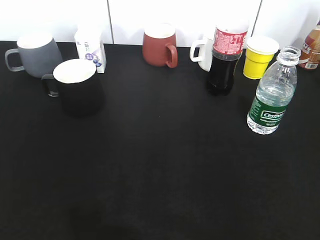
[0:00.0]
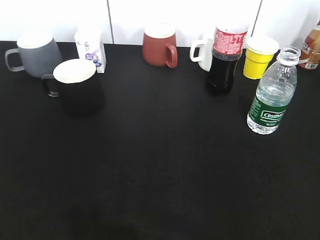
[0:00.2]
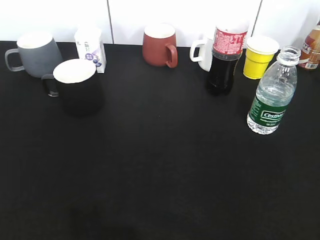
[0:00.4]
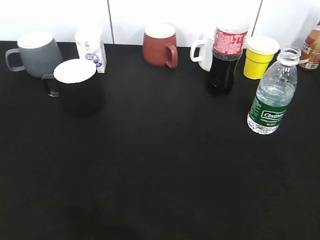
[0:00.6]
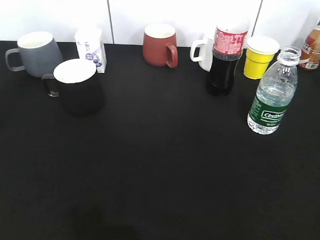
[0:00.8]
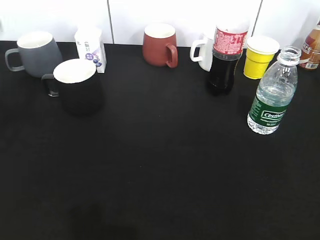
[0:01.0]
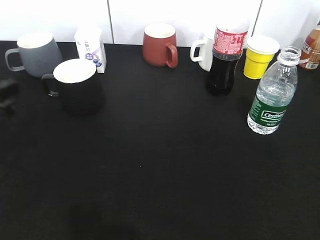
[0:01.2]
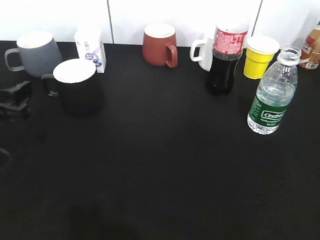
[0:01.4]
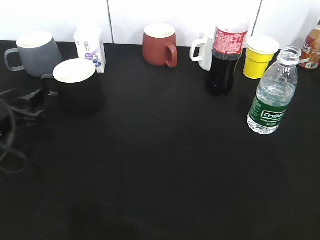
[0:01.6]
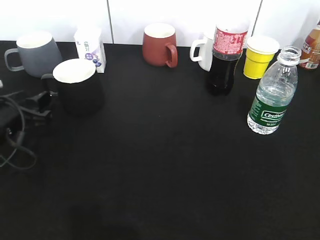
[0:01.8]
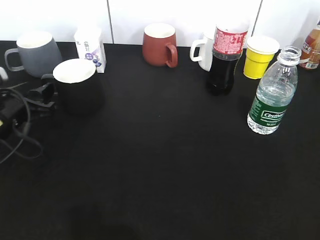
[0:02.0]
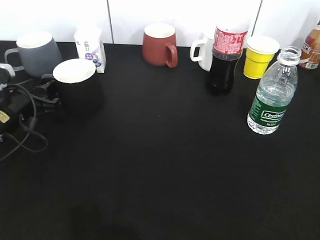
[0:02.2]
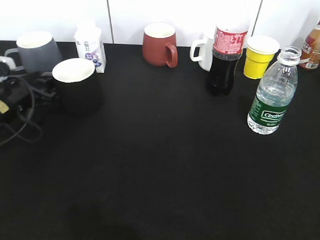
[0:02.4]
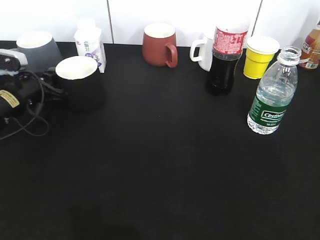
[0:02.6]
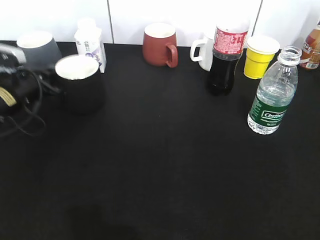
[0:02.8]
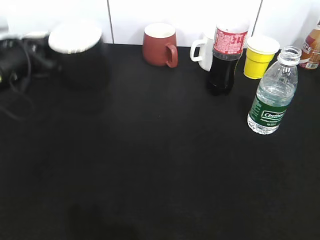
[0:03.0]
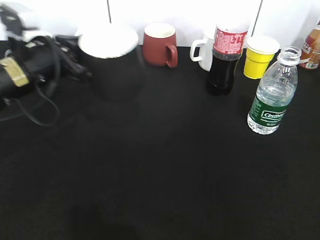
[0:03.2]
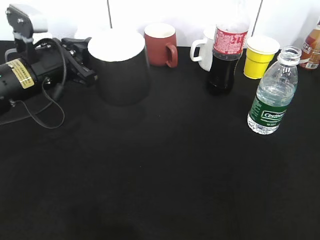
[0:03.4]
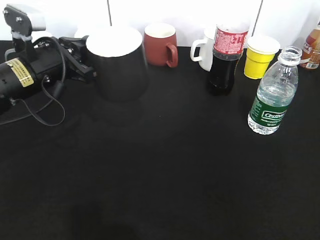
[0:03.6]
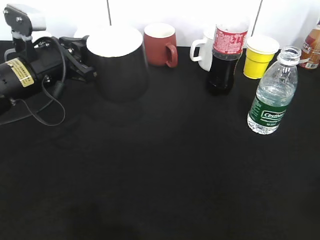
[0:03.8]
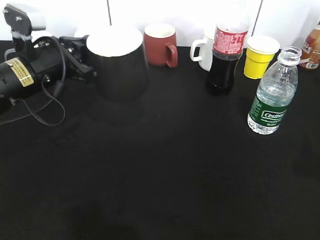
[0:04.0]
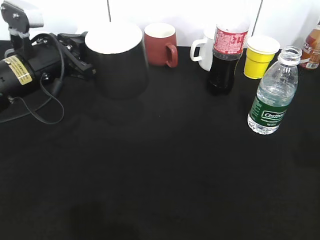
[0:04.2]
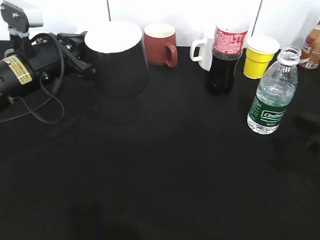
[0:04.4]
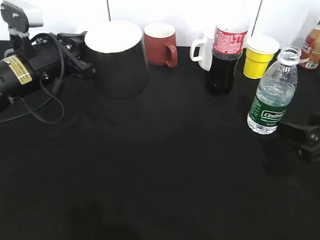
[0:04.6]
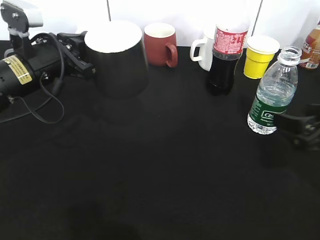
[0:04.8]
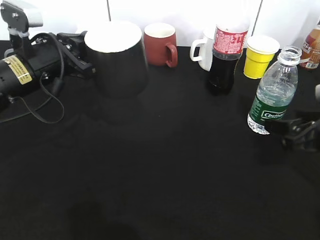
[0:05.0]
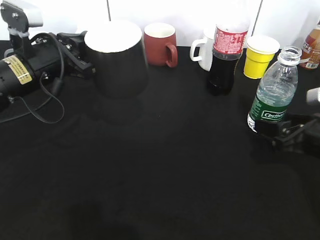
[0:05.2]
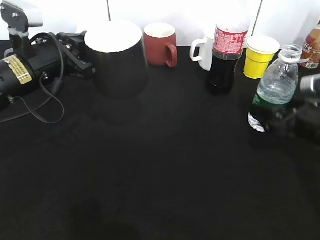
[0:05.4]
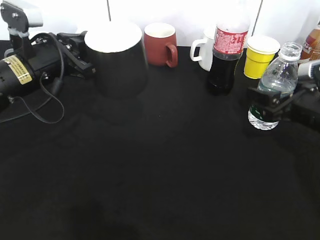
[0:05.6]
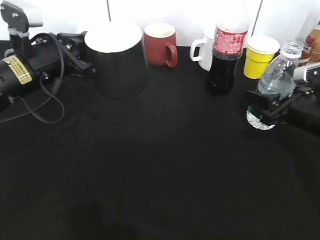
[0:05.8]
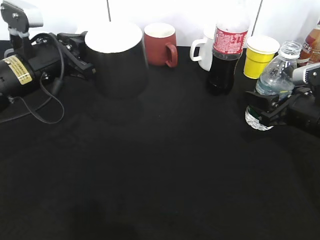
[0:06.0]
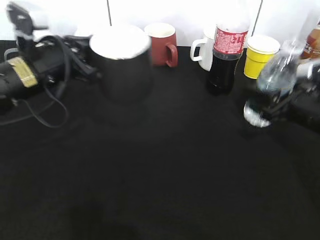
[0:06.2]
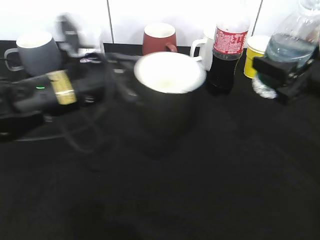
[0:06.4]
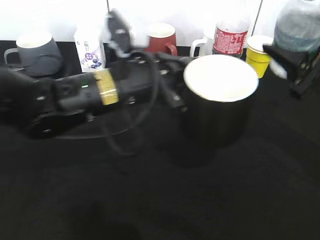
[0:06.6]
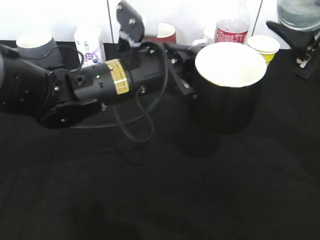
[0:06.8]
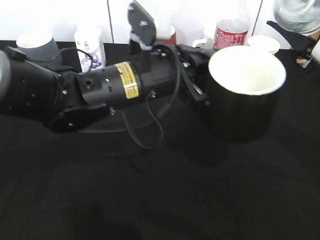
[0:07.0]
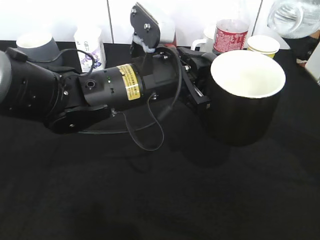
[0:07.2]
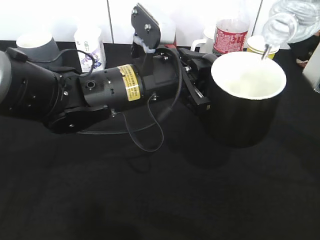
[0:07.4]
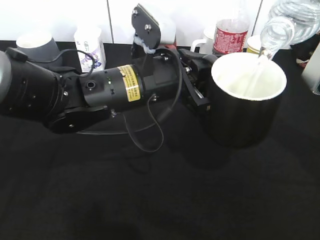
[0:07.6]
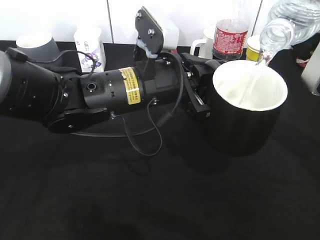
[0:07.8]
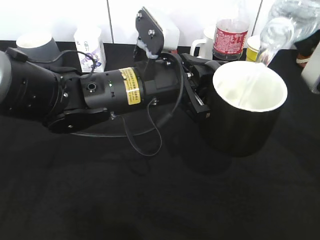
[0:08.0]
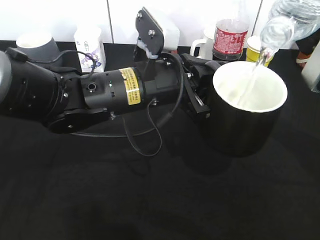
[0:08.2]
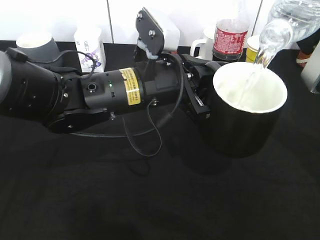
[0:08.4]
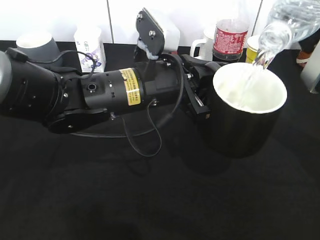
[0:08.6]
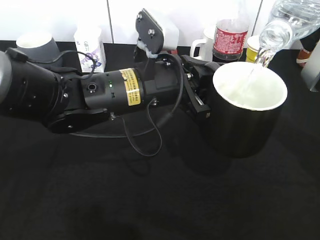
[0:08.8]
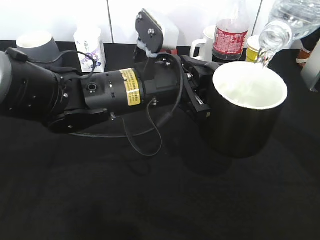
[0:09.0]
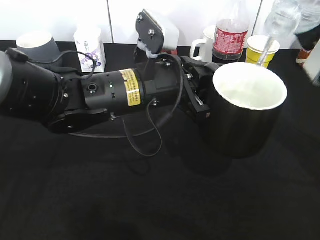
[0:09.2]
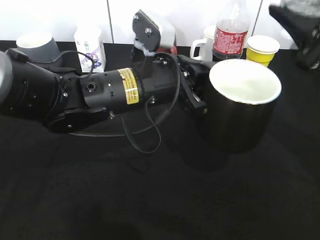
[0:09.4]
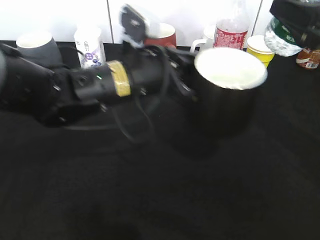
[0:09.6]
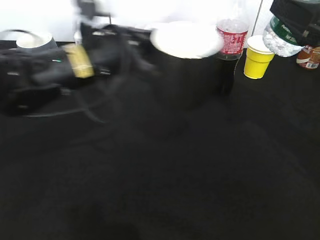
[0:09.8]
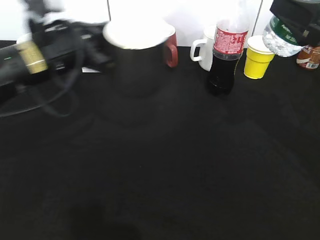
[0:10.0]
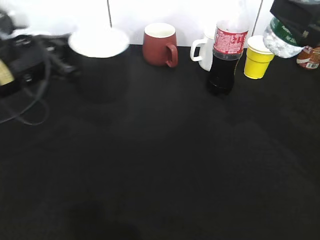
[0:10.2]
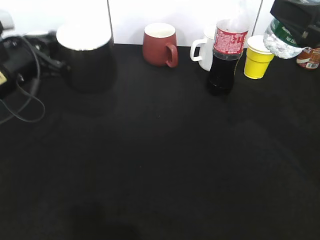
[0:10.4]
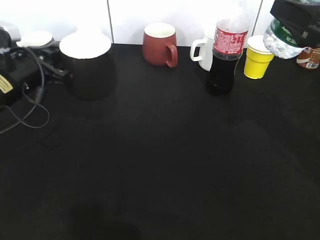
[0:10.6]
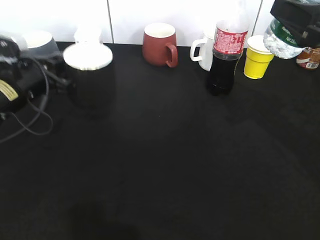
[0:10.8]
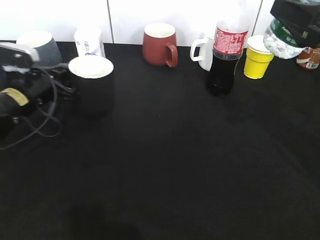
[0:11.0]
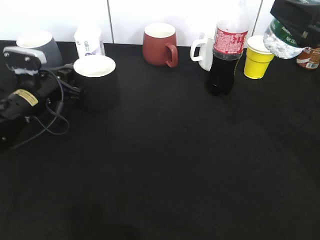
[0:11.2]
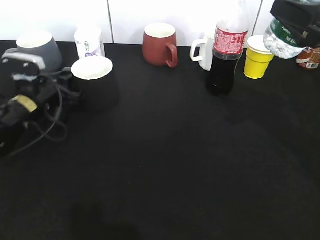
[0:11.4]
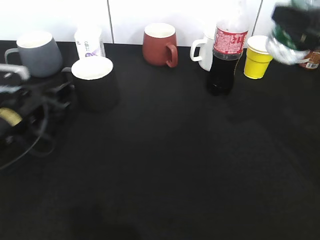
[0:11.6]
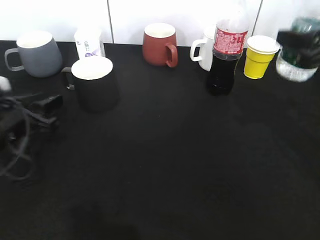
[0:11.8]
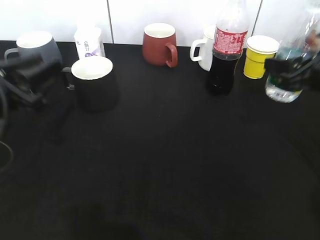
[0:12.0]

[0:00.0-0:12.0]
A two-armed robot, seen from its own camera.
Step, 0:00.6 to 0:02.6: Grasp the black cup with left gripper.
Step, 0:02.8 to 0:03.4: Lift the black cup with left gripper.
Step, 0:03.6 to 0:05.6: Grasp the bottle with water with right gripper.
Step, 0:06.0 to 0:09.4: Pour the water from bottle to cup with right gripper.
Step, 0:09.6 to 0:11.4: Place the black cup on the table with left gripper.
0:00.0 to 0:01.6: The left gripper travels forward and downward by roughly 30 cm.
0:01.6 to 0:03.0: The left gripper shifts some 10 cm forward and upward, and closes up.
0:03.0 to 0:04.4: The right gripper travels forward and downward by roughly 25 cm; the left gripper is displaced to the right by approximately 5 cm.
0:04.4 to 0:06.0: The right gripper travels forward by about 10 cm, and opens and closes again.
0:06.0 to 0:07.6: The right gripper is displaced upward by approximately 15 cm. The left gripper is displaced to the right by some 15 cm.
0:07.6 to 0:09.0: The grippers move only a little.
0:09.0 to 0:10.4: The left gripper is displaced to the left by about 20 cm.
0:10.4 to 0:12.0: The right gripper travels downward by about 10 cm. The left gripper is displaced backward by roughly 10 cm, and opens up.

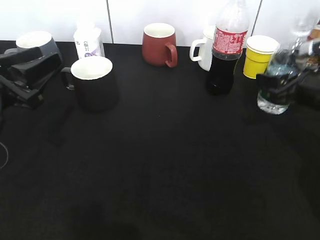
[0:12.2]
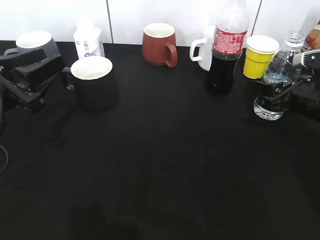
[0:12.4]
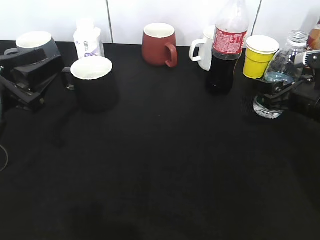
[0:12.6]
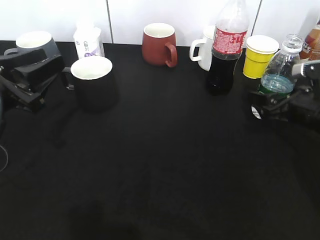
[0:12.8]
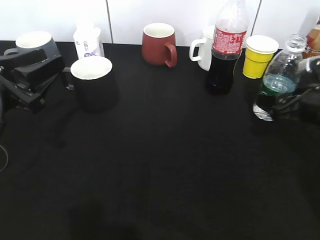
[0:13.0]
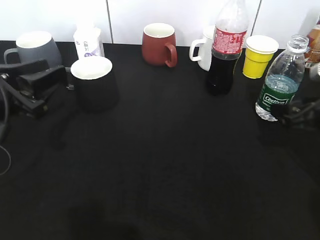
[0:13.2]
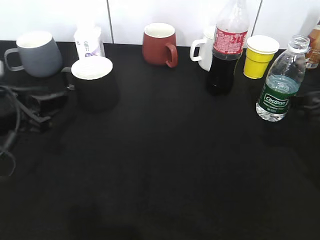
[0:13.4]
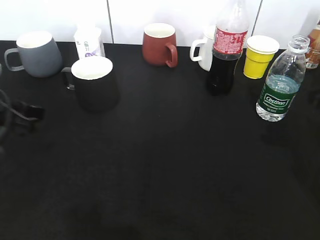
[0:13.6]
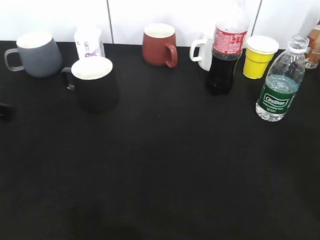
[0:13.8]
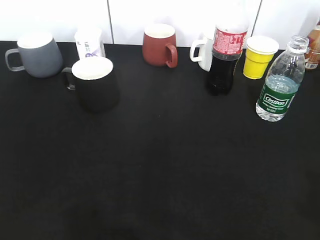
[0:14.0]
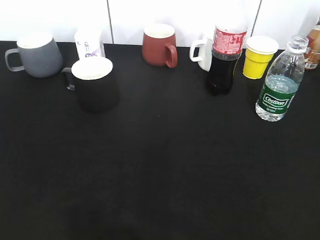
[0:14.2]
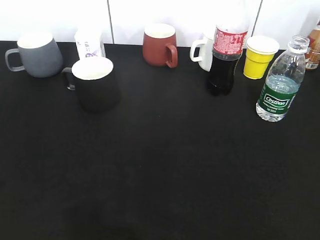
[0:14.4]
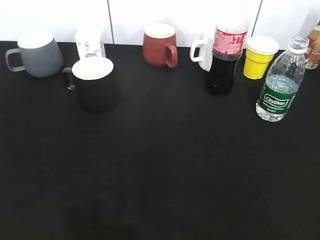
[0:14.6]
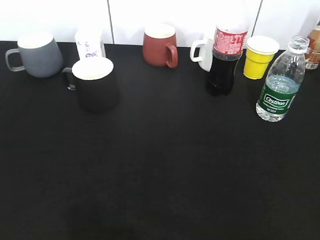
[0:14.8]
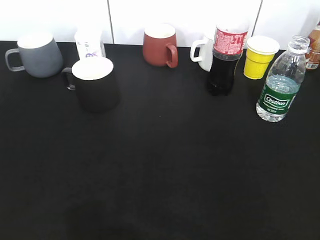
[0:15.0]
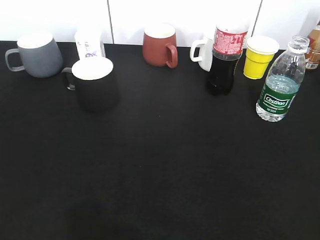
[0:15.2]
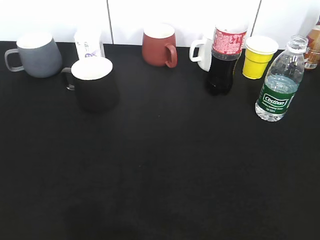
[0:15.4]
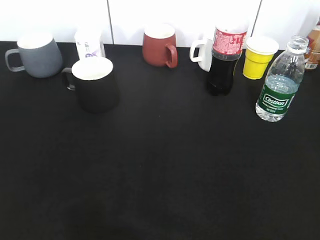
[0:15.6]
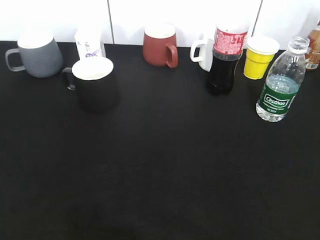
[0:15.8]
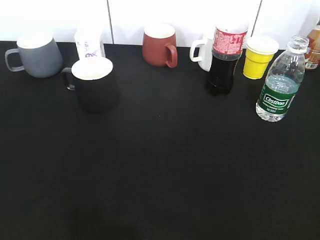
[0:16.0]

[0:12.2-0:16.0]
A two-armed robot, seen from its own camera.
Step, 0:12.2 to 0:13.0: Place the water bottle on the table with right gripper.
0:12.2 to 0:13.4: The right gripper is displaced backward by about 5 cm, and opens its fingers.
0:13.4 to 0:14.8: The right gripper travels backward by about 25 cm; the left gripper moves backward and upward, about 25 cm.

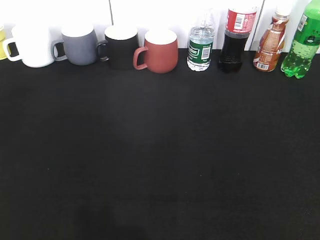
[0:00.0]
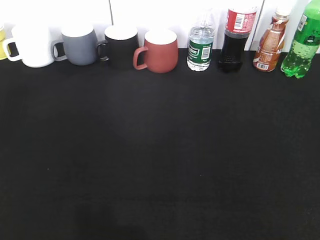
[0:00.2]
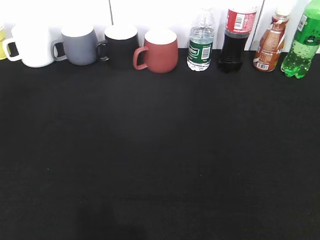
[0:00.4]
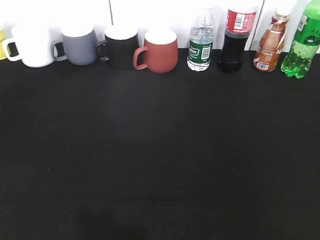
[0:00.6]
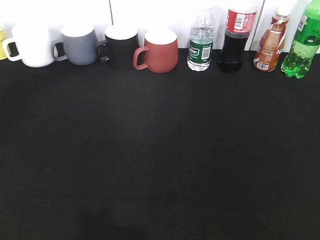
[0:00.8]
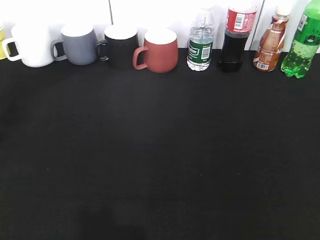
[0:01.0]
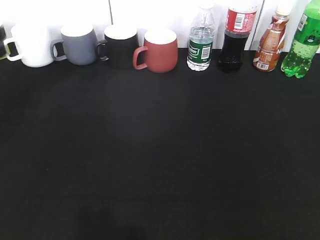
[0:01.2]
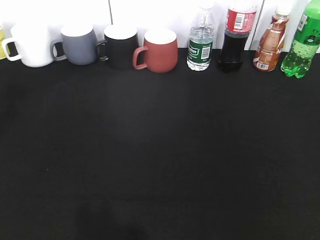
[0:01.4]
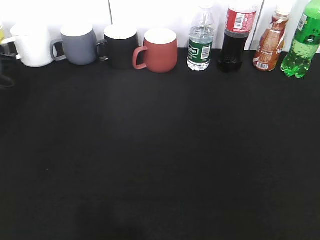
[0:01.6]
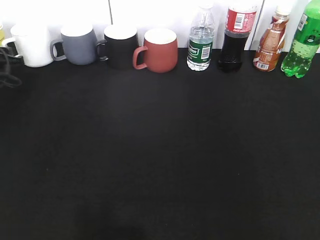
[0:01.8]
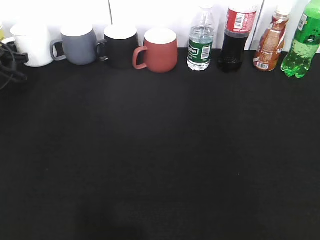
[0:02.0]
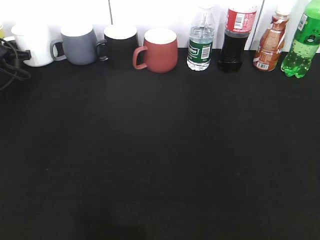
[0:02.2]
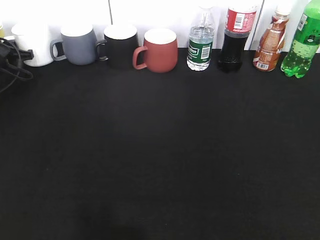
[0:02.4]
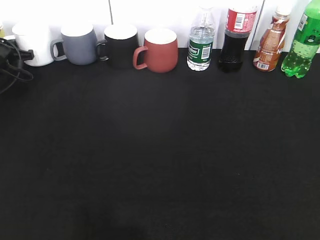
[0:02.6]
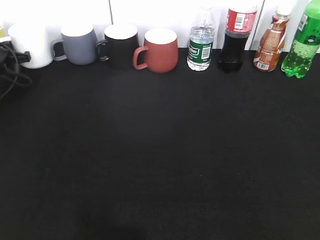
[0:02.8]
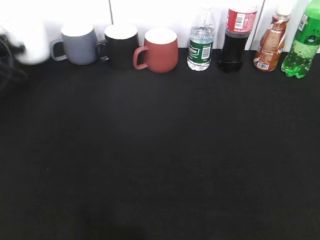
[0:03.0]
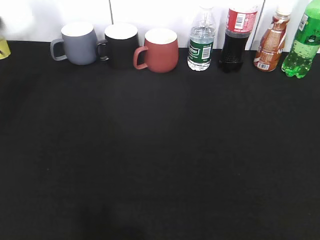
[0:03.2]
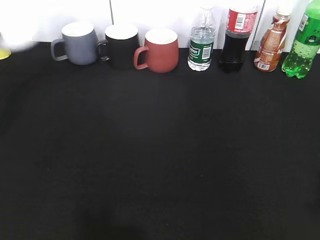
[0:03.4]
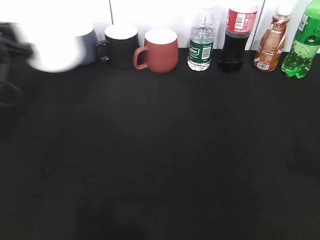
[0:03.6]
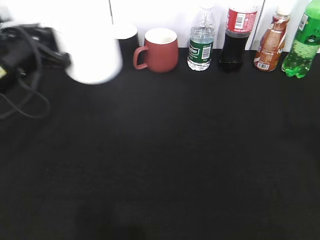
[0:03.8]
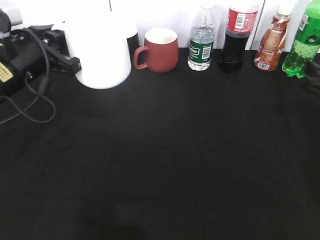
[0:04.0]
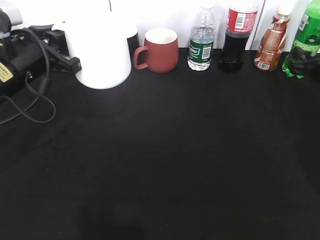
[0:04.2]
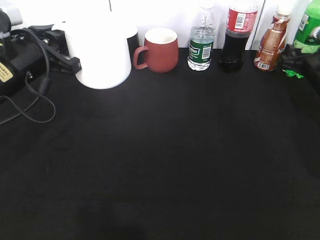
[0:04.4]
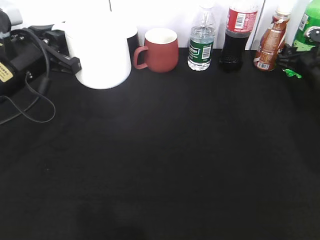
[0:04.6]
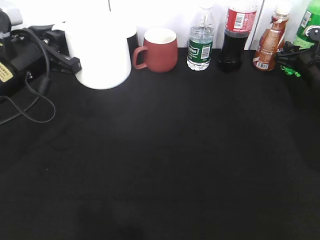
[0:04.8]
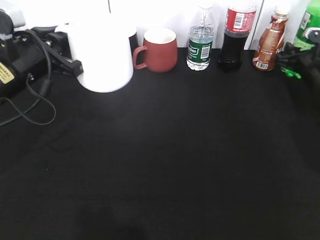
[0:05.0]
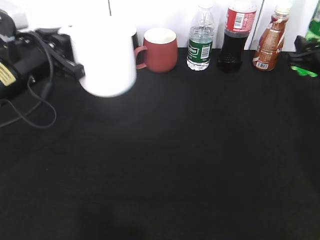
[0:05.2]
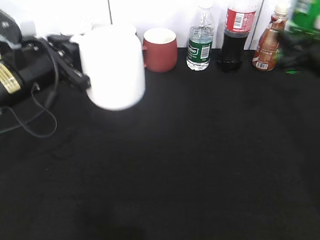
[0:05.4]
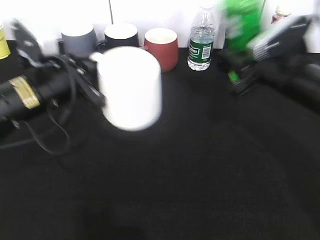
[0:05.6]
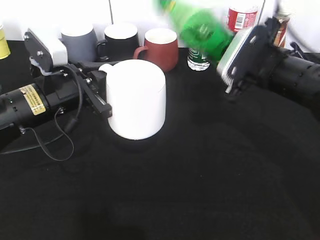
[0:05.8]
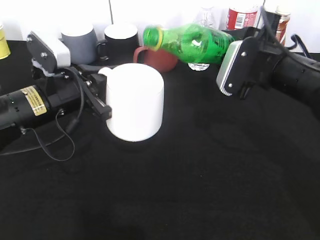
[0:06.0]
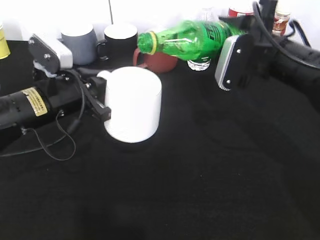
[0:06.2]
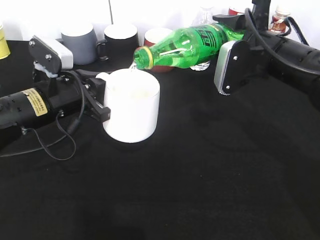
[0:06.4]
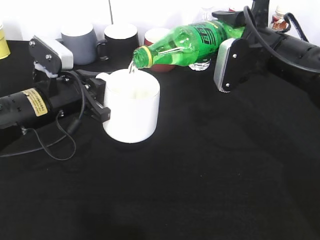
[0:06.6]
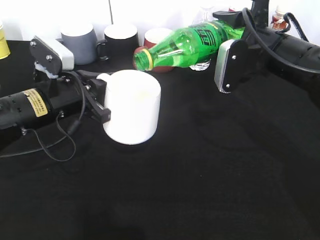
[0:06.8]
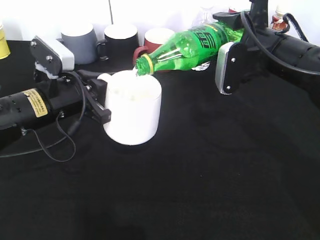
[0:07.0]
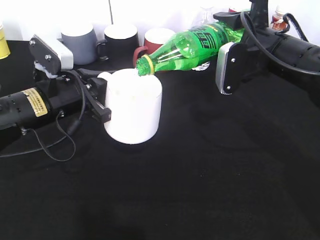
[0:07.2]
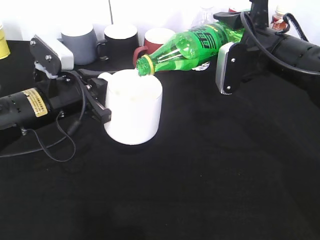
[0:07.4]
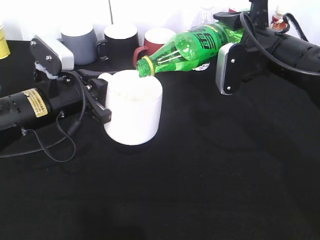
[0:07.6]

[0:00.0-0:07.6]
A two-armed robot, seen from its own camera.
Step, 0:02.8 to 0:03.8: Lift the white cup with left gripper.
Step, 0:04.0 to 0:04.8: Grasp the bottle with sprite with right gripper.
0:00.0 to 0:01.6: The left gripper heads forward, covering roughly 40 cm.
0:01.6 to 0:03.0: The left gripper moves forward, approximately 5 cm, and closes.
0:03.0 to 0:04.6: The left gripper travels backward, to the right and upward by approximately 25 cm; the right gripper is displaced forward by some 50 cm.
0:04.6 to 0:06.0: The left gripper shifts by approximately 5 cm; the right gripper heads to the left, backward and upward, covering about 20 cm, and closes up.
